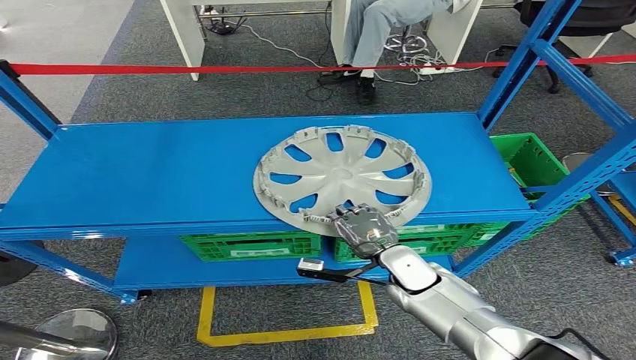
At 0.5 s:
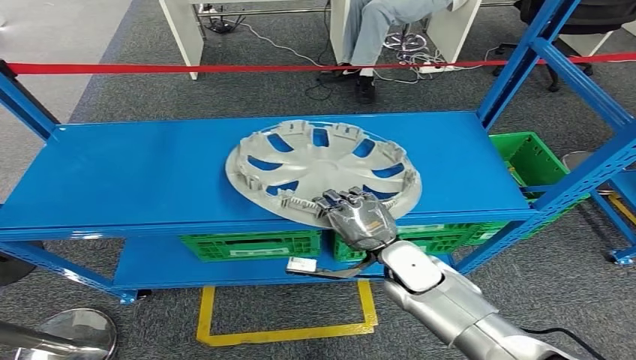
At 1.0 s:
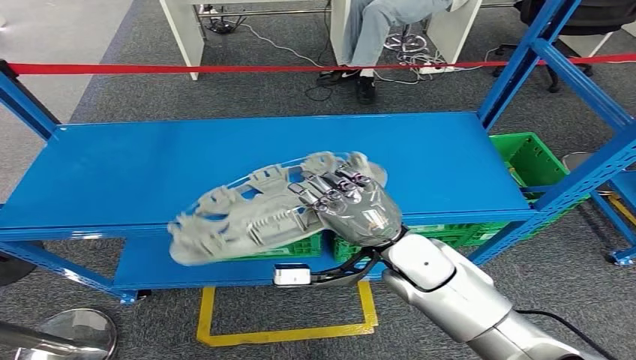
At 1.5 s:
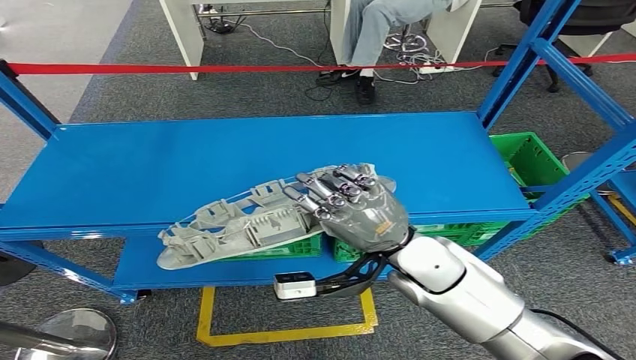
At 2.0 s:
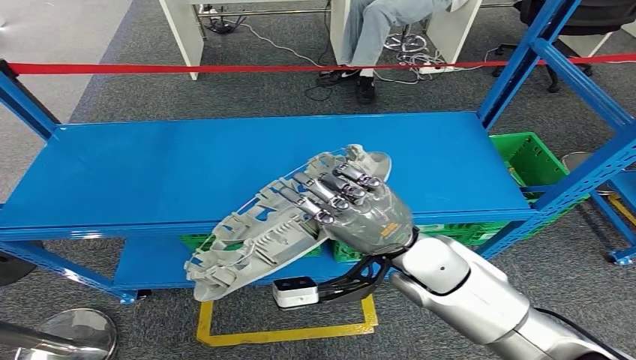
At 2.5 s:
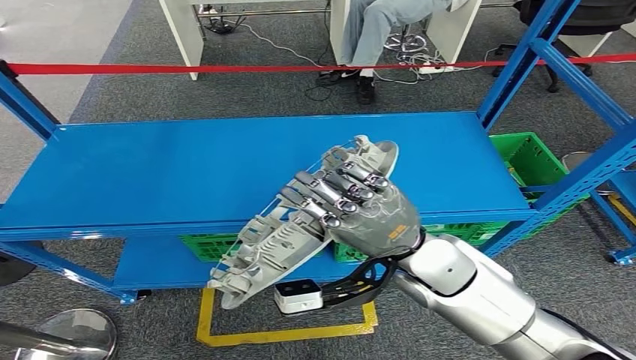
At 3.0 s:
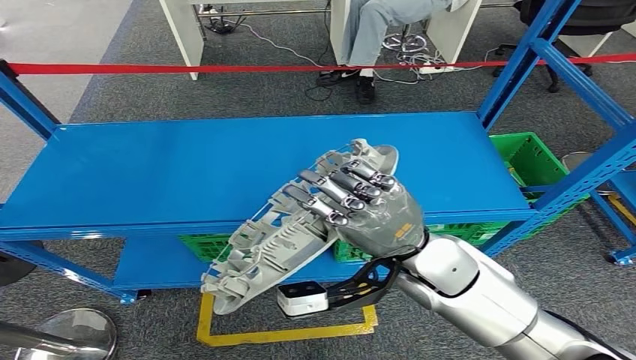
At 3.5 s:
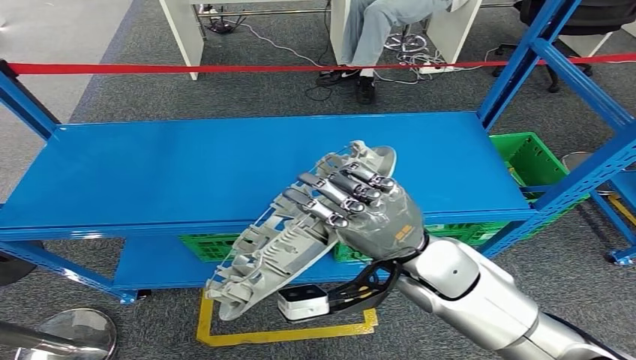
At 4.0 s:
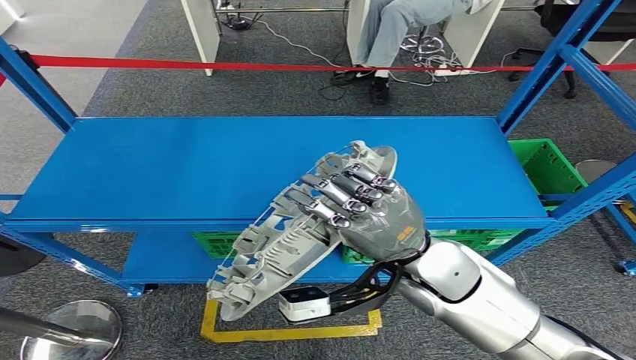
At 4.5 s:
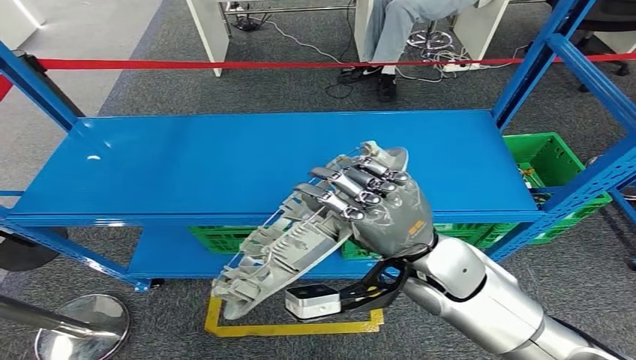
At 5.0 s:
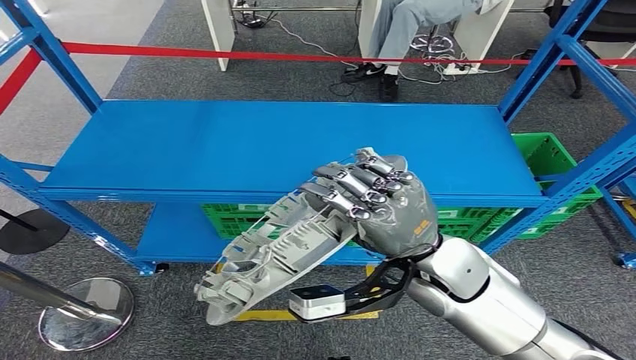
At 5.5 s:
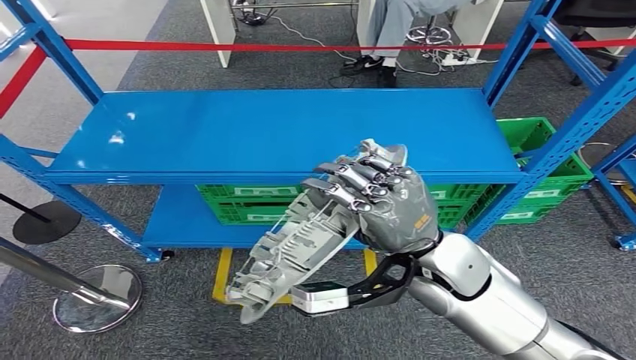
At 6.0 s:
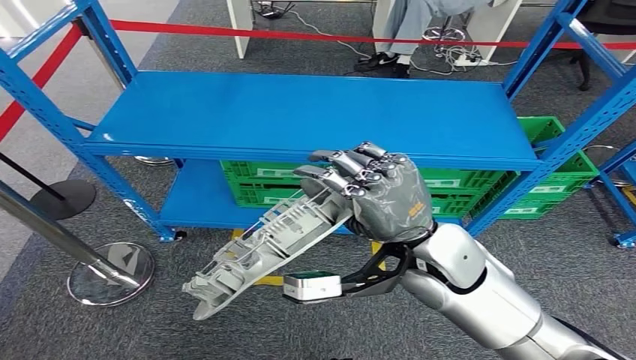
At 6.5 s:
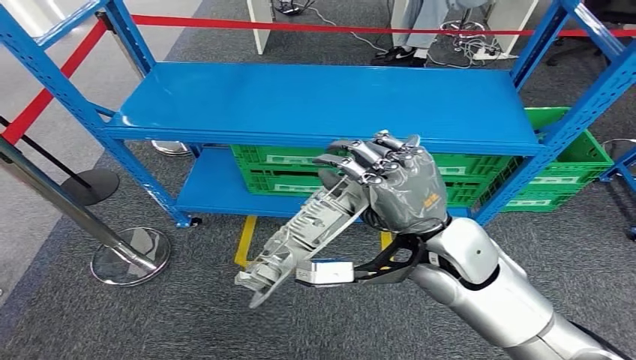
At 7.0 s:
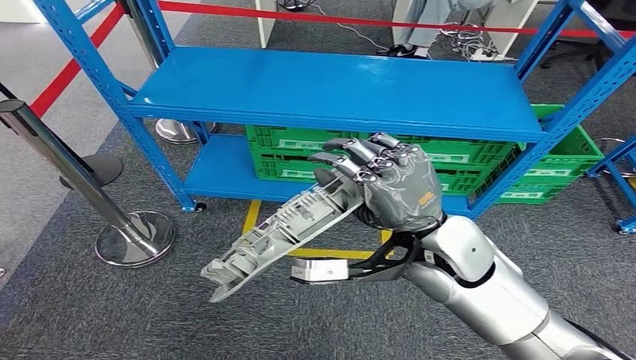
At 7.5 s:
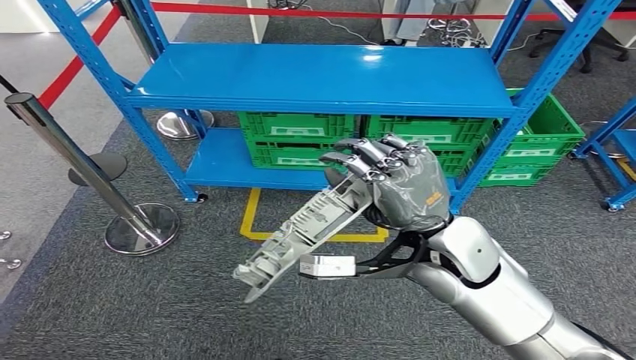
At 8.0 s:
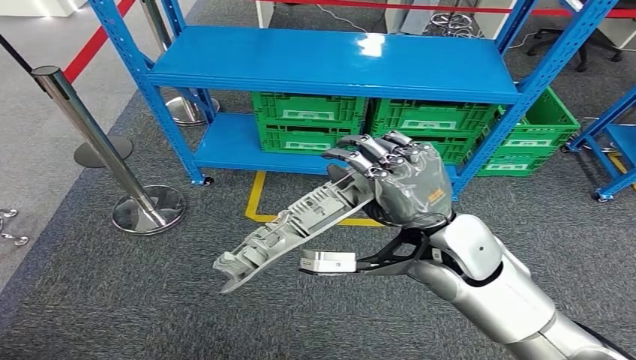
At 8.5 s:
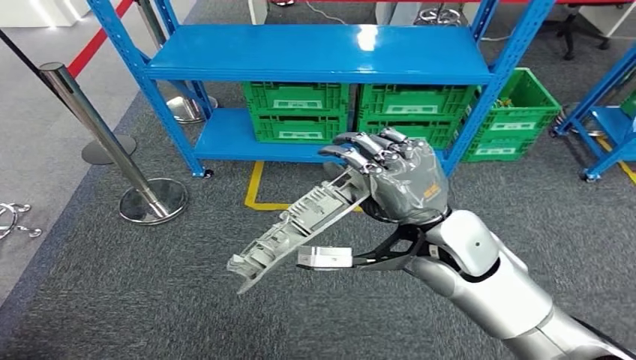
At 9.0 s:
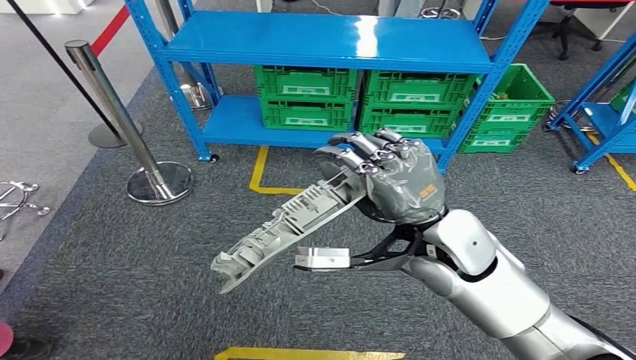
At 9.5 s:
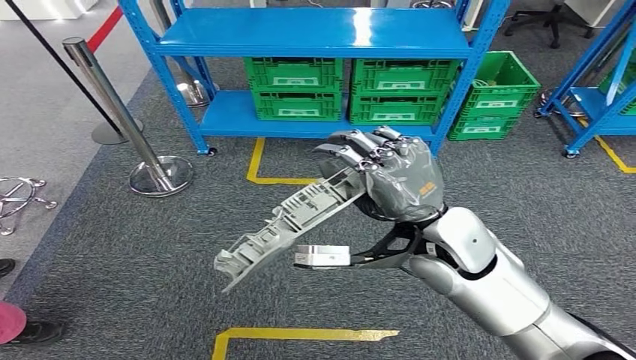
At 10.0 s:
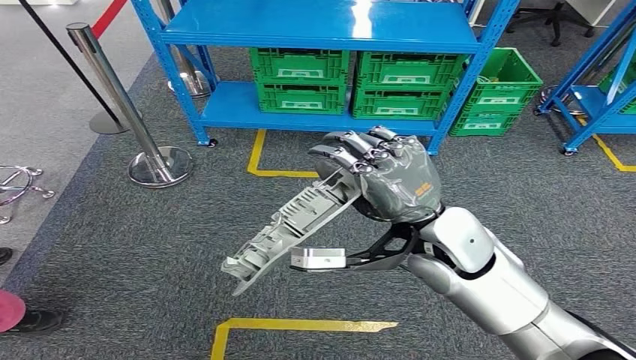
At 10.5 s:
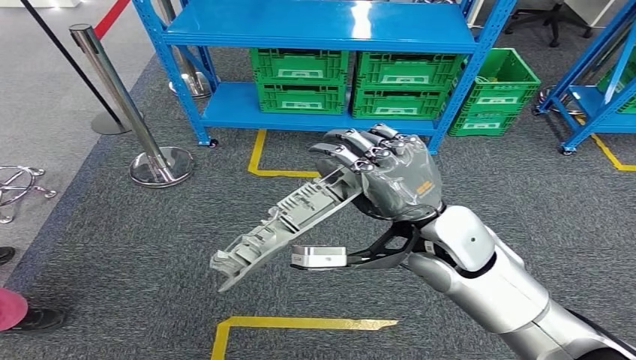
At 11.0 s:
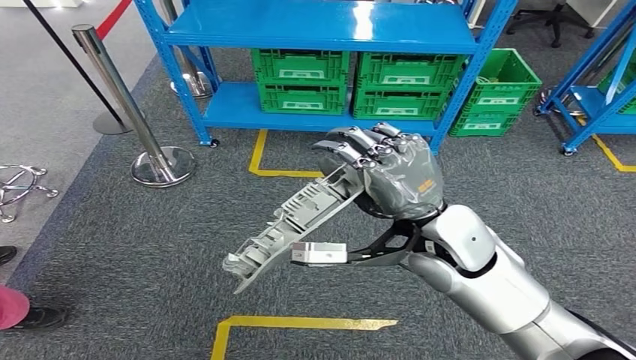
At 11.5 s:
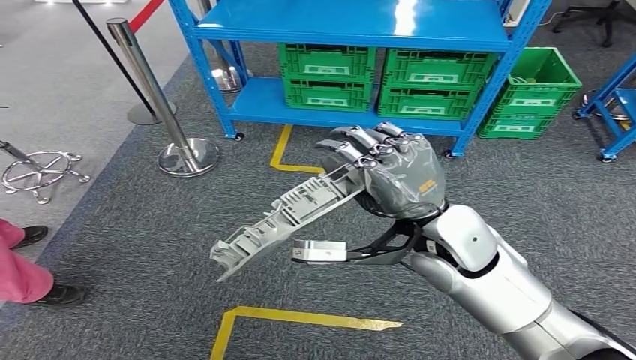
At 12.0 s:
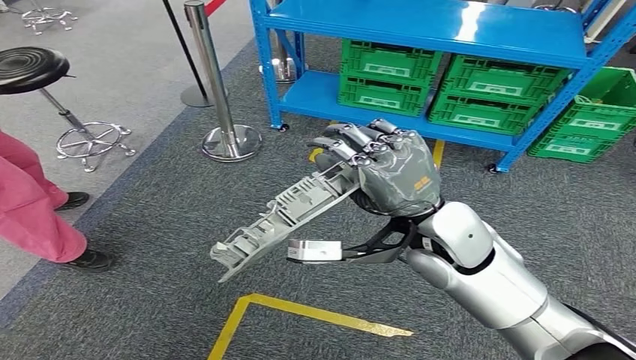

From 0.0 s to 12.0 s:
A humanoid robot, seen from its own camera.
Step, from 0.0 s to 11.0 s: Move the small component to the workbench.
From 0.0 s to 2.0 s: The right hand heads upward, covering some 15 cm.

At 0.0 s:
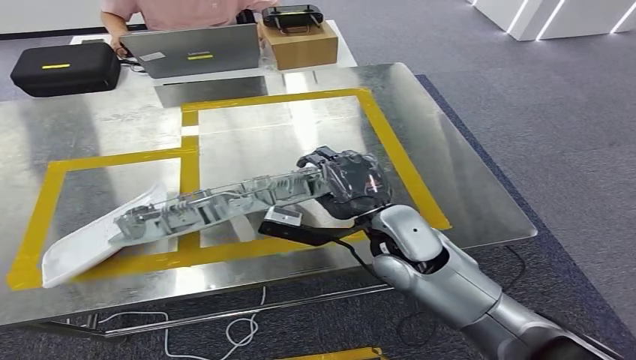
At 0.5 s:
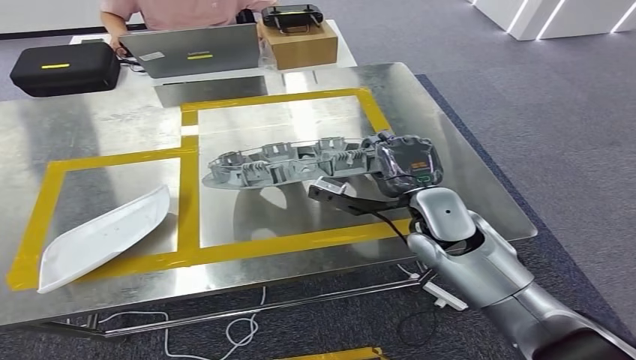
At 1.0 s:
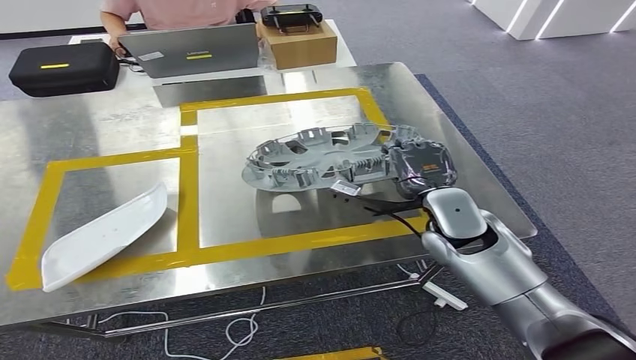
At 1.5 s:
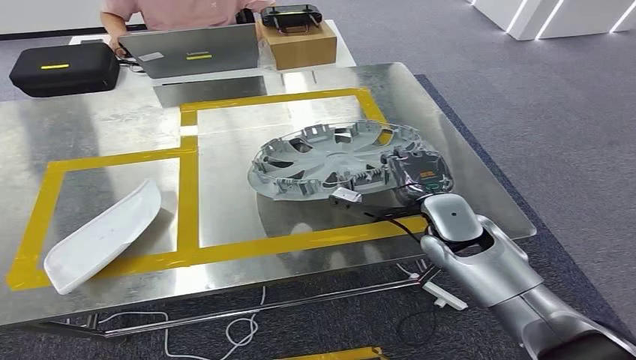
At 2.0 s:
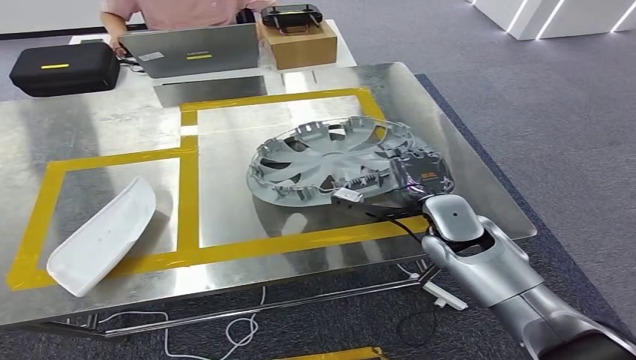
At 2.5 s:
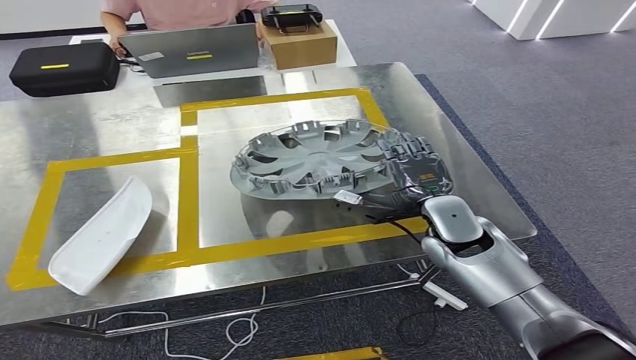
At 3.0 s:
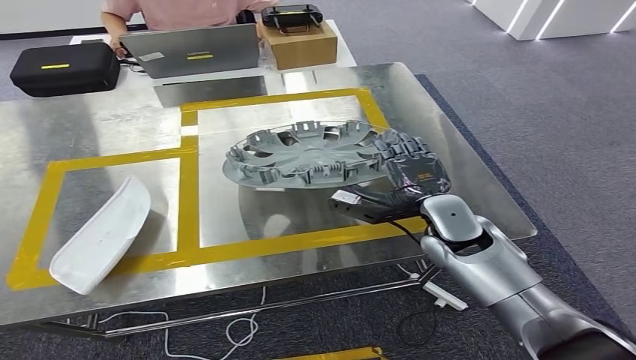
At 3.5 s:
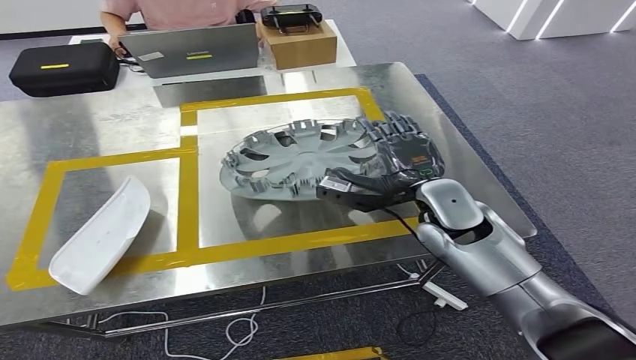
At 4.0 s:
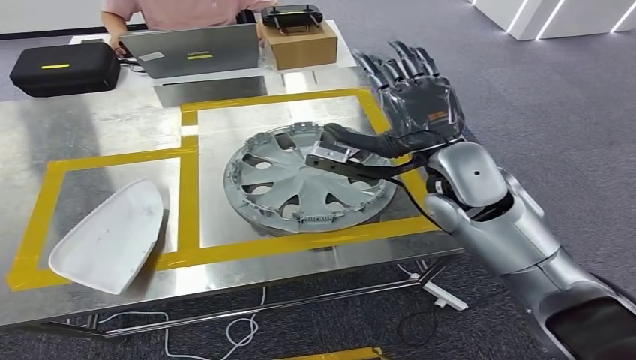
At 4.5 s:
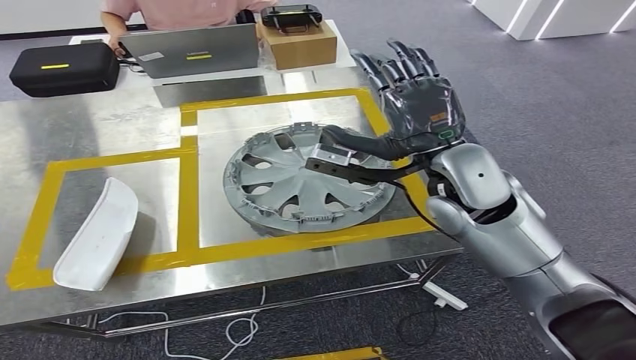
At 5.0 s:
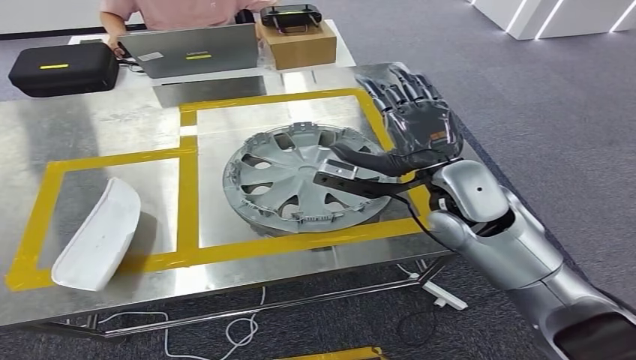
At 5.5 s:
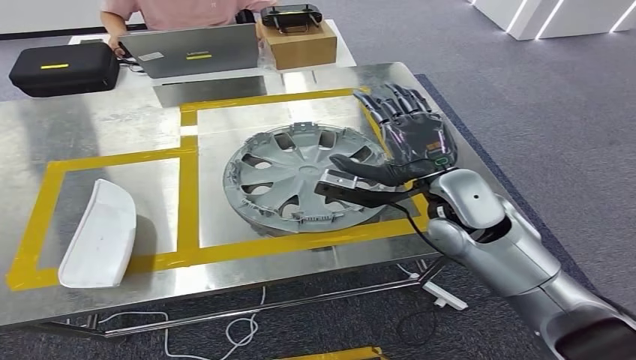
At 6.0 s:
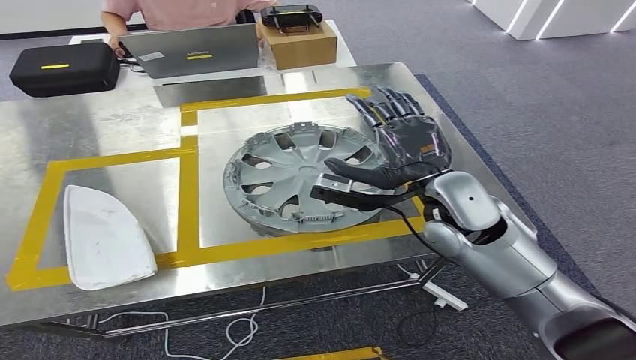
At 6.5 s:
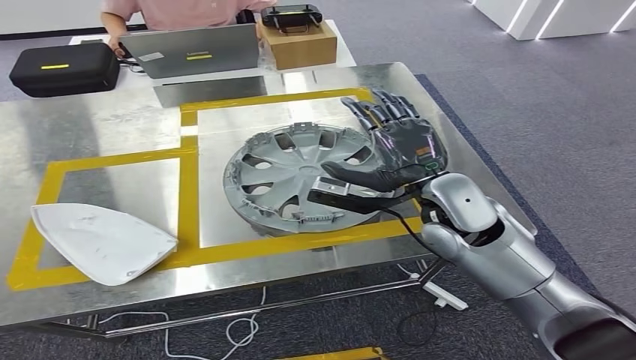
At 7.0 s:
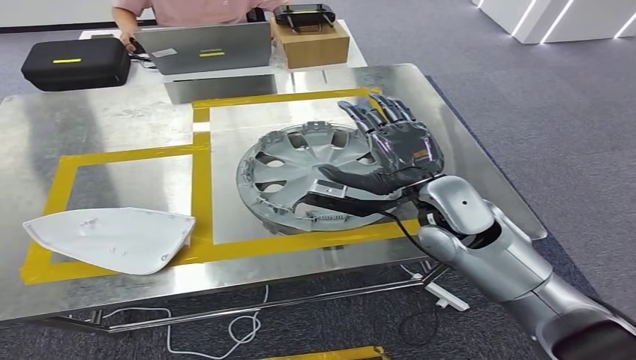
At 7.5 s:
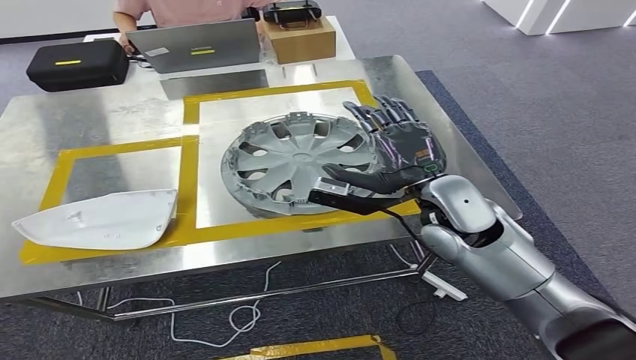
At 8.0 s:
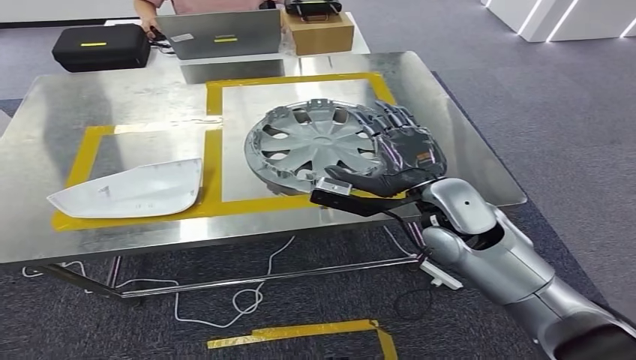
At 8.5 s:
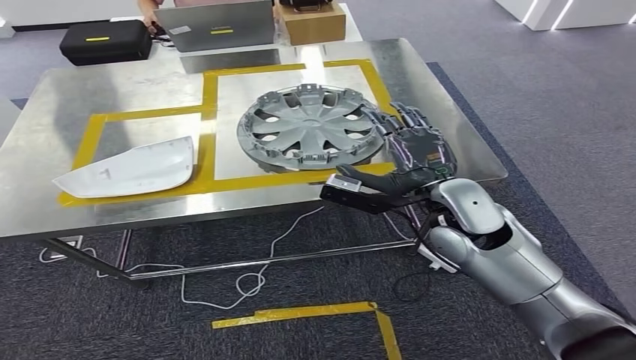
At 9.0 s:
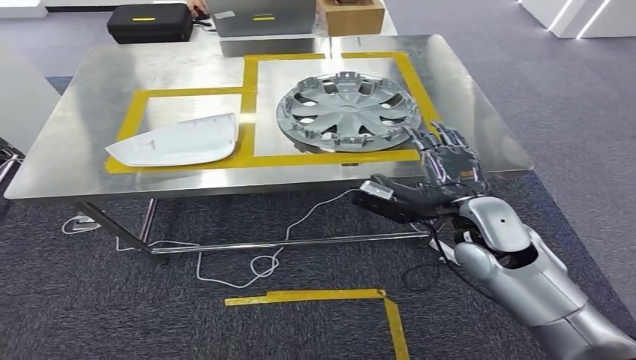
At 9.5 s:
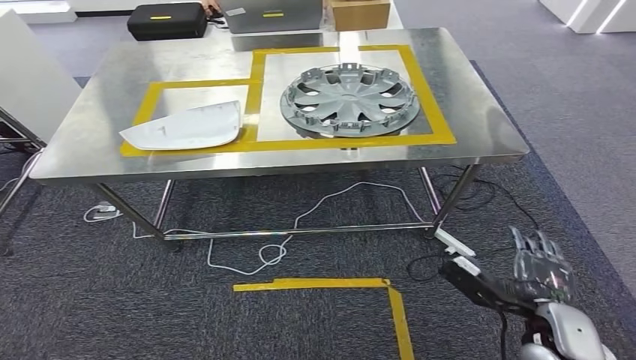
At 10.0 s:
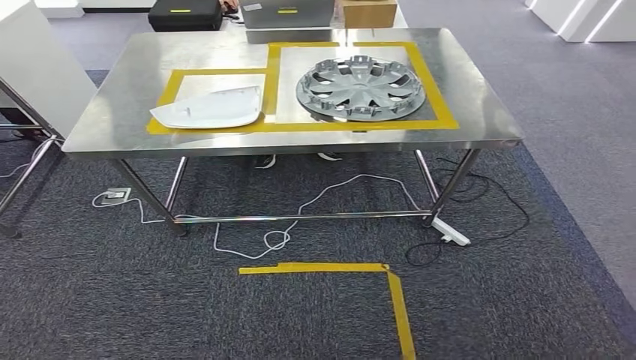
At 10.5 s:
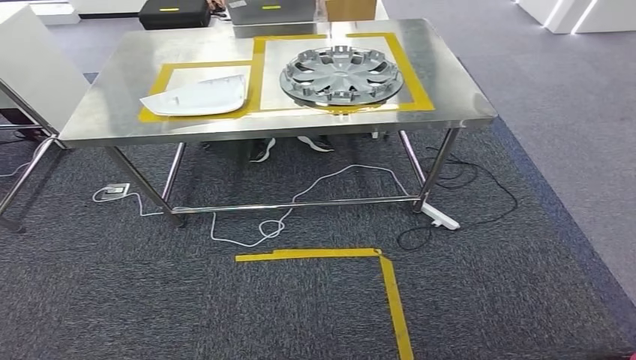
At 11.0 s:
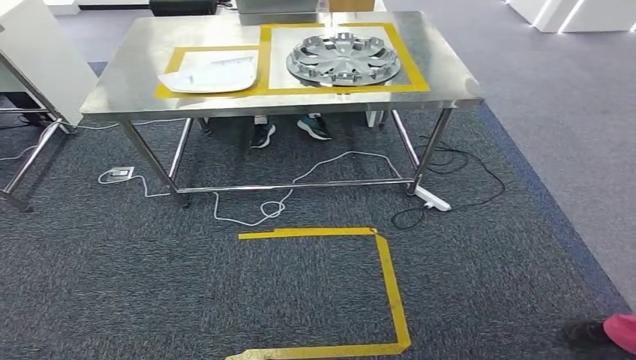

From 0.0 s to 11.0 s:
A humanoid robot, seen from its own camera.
Step, from 0.0 s to 10.5 s: Insert the small component into the corresponding slot on the workbench.
From 2.0 s to 3.5 s: There are only small adjustments of the hands.
